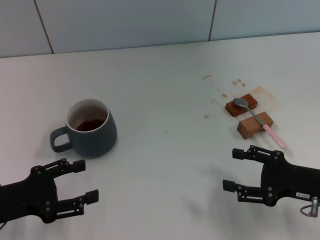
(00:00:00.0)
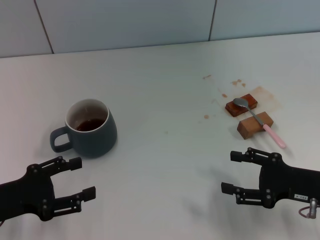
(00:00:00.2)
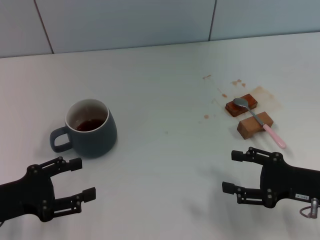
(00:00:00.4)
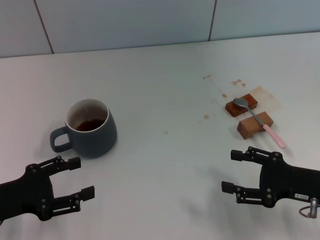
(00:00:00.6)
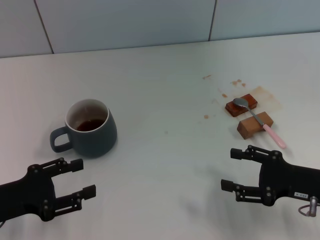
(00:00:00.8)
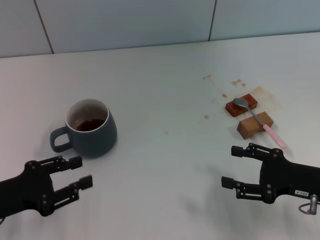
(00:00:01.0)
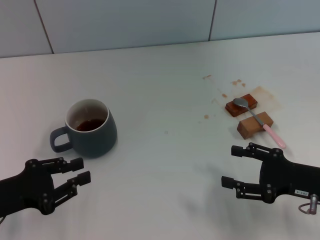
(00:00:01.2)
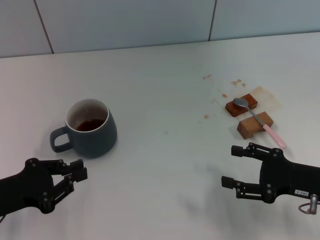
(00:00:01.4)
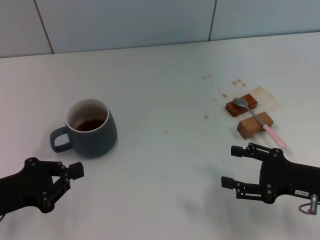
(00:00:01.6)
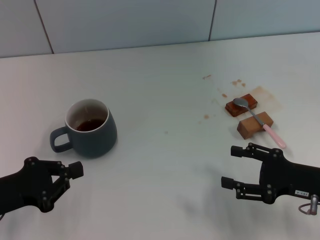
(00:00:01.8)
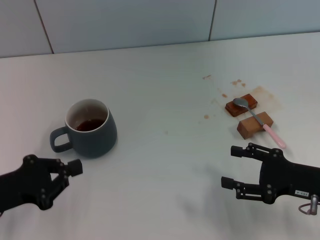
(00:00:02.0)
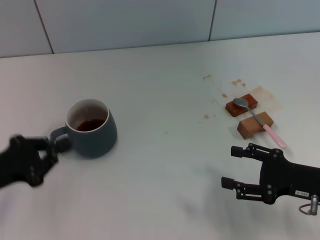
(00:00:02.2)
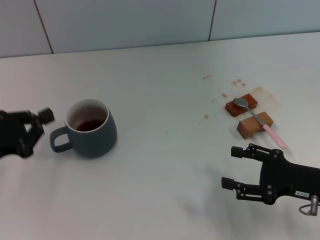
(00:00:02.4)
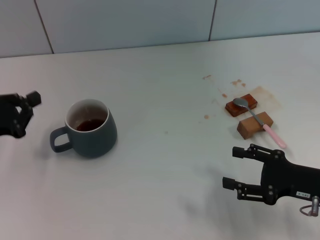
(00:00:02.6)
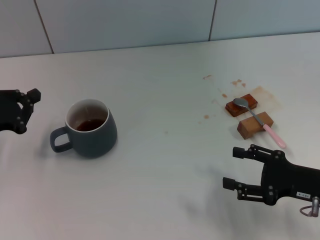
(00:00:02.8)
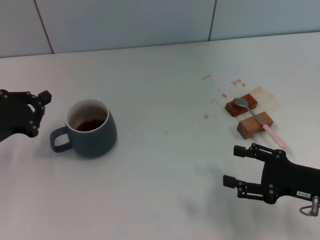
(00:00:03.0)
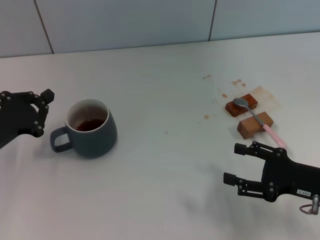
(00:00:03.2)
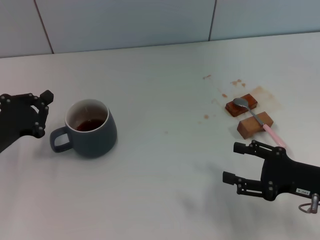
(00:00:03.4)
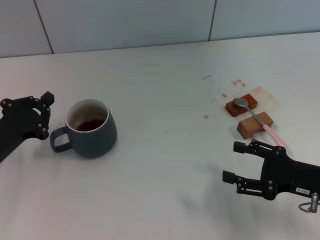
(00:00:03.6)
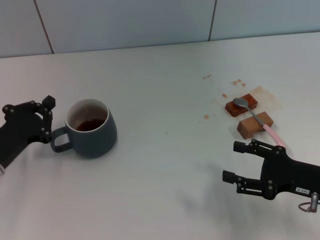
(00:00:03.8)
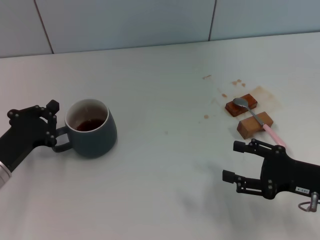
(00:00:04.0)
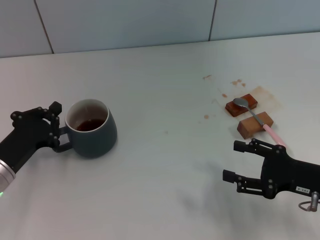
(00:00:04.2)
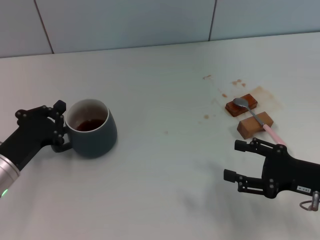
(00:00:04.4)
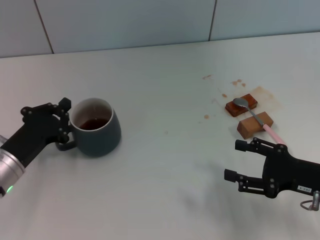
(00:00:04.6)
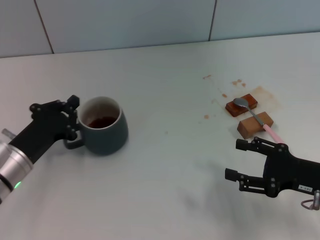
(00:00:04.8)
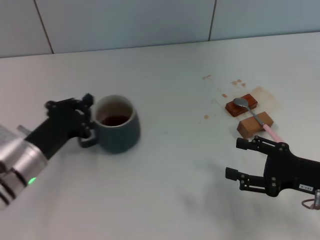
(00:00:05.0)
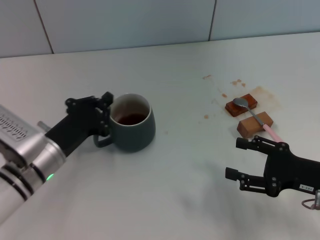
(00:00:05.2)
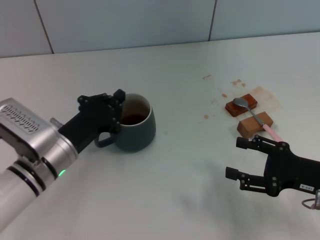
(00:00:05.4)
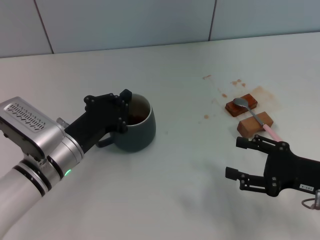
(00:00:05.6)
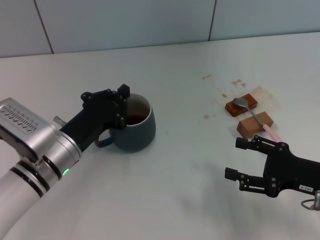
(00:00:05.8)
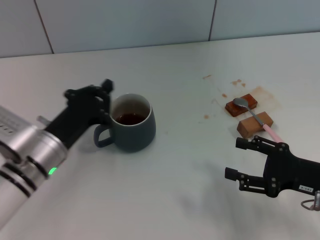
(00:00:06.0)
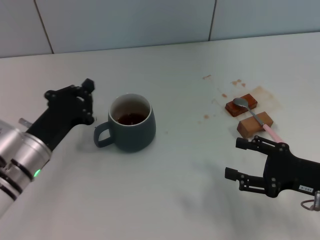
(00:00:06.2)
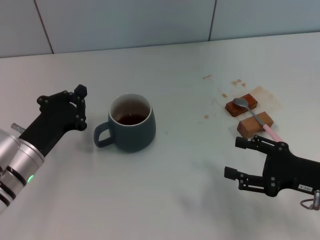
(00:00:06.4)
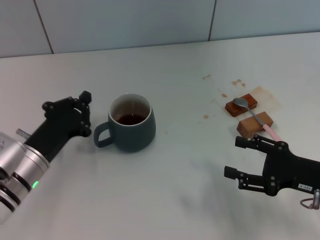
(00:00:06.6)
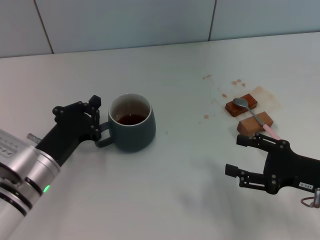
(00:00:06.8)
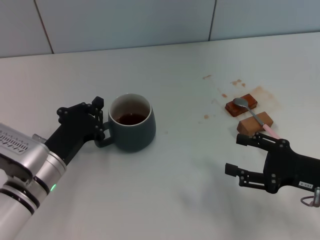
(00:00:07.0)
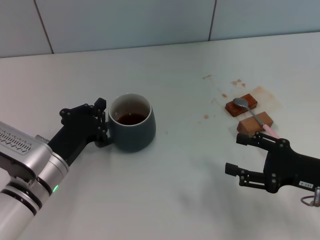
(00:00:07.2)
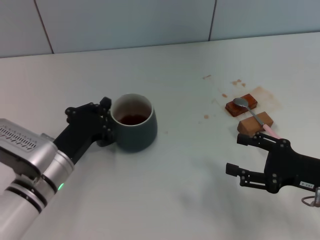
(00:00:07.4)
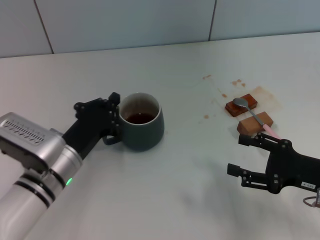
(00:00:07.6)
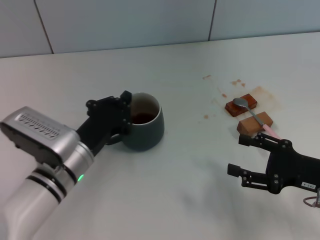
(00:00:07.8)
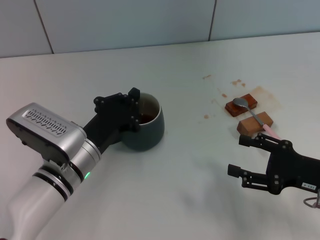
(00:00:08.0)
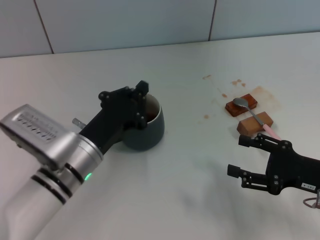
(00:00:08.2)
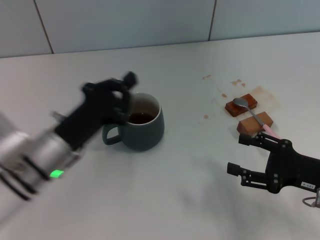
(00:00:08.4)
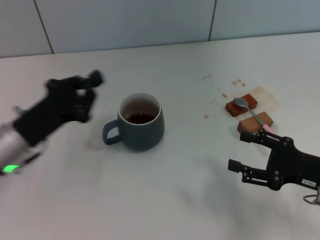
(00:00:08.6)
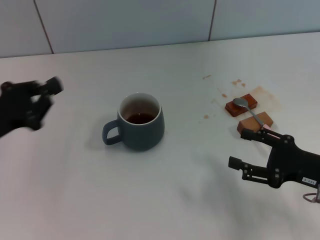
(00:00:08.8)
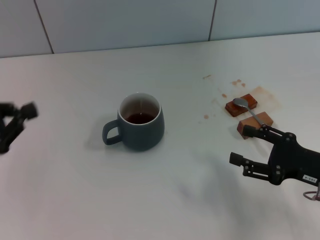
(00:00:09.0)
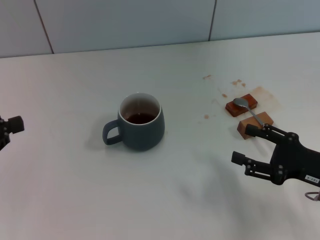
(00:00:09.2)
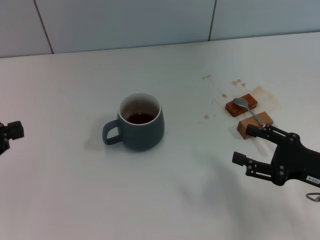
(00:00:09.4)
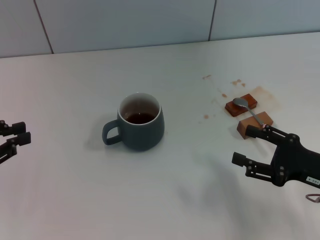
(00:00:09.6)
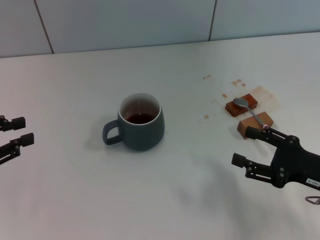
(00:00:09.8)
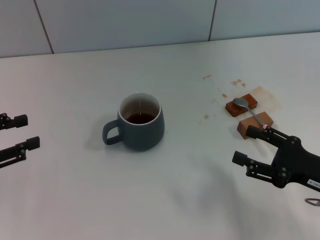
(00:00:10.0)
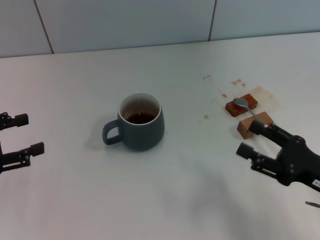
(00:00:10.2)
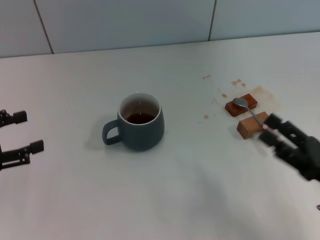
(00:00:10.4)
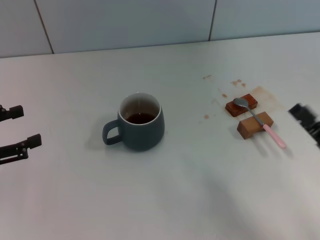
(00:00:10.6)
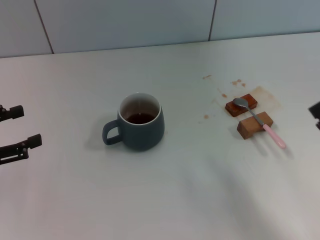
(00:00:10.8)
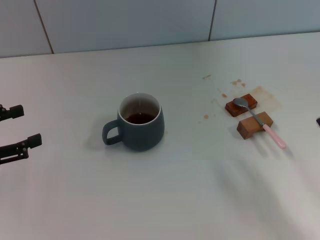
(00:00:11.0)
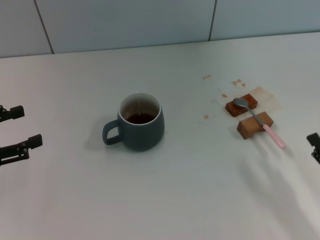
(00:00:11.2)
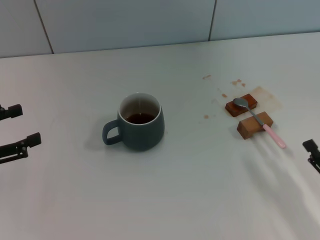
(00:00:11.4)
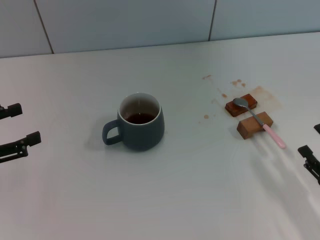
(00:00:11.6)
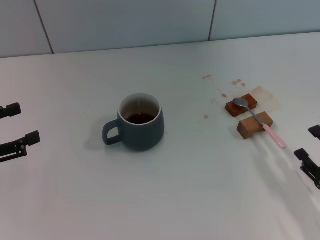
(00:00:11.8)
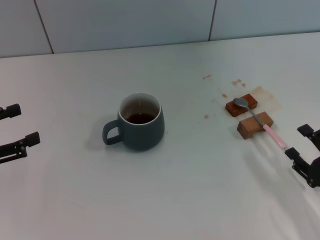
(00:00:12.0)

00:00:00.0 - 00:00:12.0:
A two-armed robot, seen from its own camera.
Task of the whole recording: Move the grey cup to the center, lift the pink spoon, stir it three times in the cup, and put the spoon into the cup.
Step, 00:00:00.0 - 00:00:08.4: Move the cup with coffee to the center of view with the left gripper.
00:00:00.0 - 00:00:01.6: The left gripper closes.
00:00:01.6 - 00:00:03.0: The left gripper shifts roughly 5 cm forward.
00:00:03.0 - 00:00:04.4: The left gripper moves downward, approximately 5 cm.
00:00:04.4 - 00:00:06.0: The left gripper is displaced to the right by approximately 5 cm.
00:00:06.0 - 00:00:07.6: The grippers move only a little.
00:00:07.6 - 00:00:09.0: The left gripper moves to the left and upward, some 20 cm.
00:00:09.0 - 00:00:10.4: The left gripper opens its fingers. The right gripper goes approximately 5 cm backward.
00:00:10.4 - 00:00:12.0: The right gripper travels downward by about 5 cm.

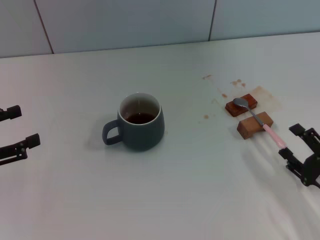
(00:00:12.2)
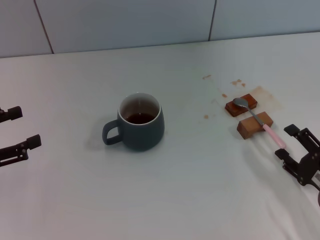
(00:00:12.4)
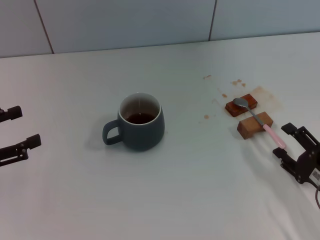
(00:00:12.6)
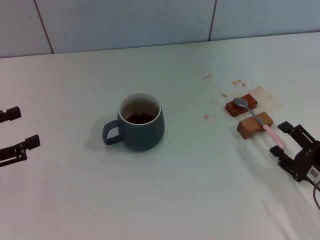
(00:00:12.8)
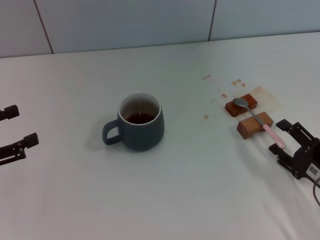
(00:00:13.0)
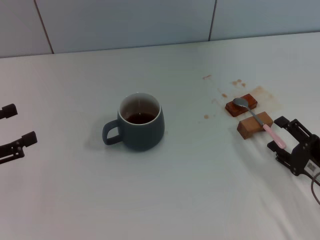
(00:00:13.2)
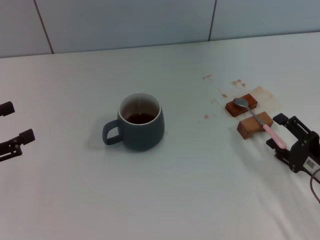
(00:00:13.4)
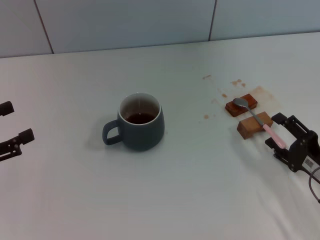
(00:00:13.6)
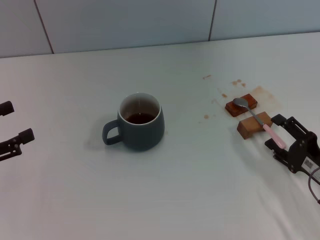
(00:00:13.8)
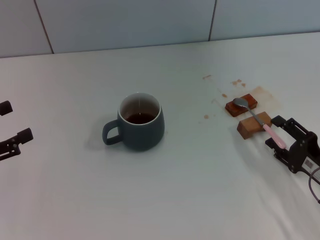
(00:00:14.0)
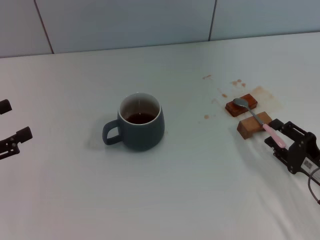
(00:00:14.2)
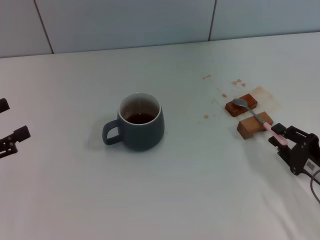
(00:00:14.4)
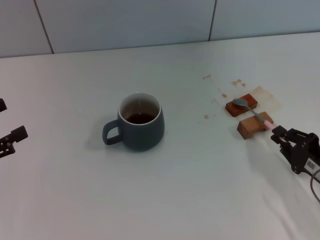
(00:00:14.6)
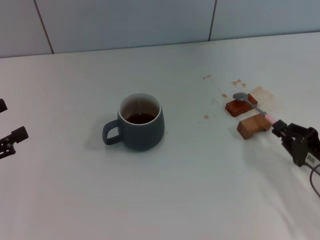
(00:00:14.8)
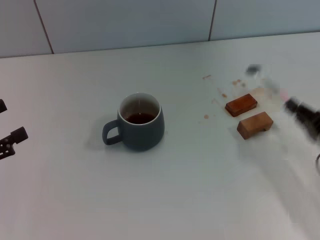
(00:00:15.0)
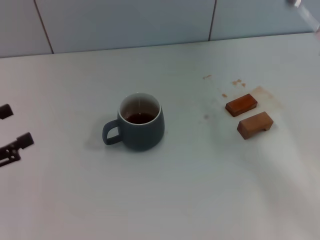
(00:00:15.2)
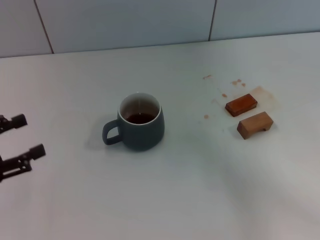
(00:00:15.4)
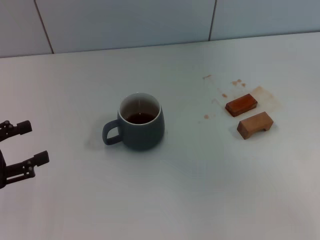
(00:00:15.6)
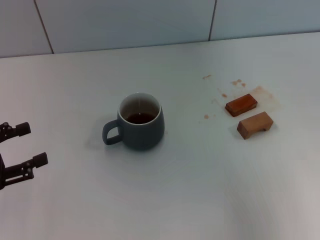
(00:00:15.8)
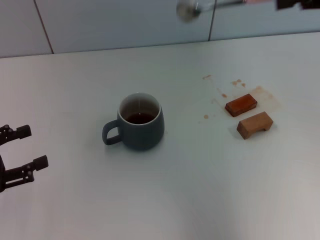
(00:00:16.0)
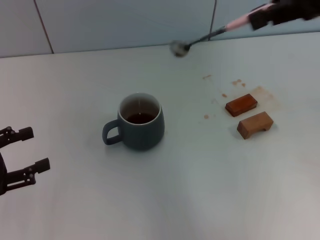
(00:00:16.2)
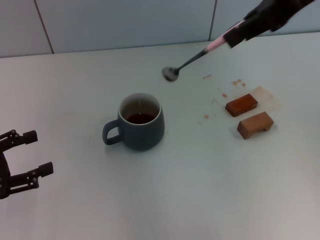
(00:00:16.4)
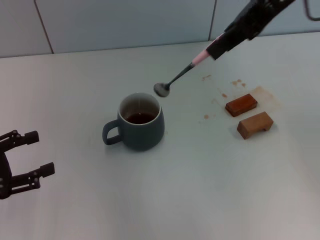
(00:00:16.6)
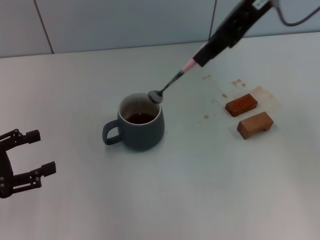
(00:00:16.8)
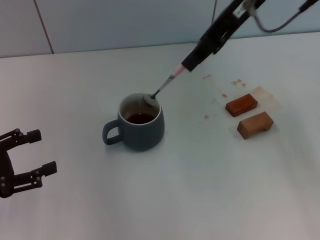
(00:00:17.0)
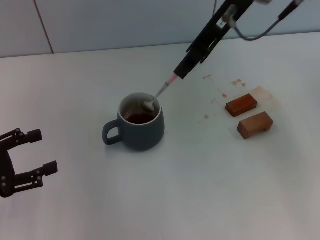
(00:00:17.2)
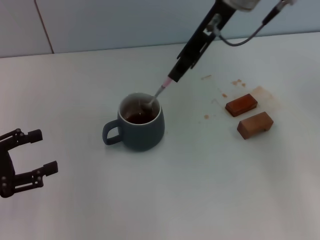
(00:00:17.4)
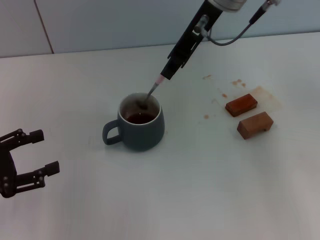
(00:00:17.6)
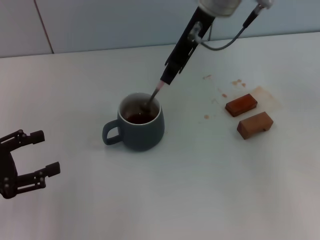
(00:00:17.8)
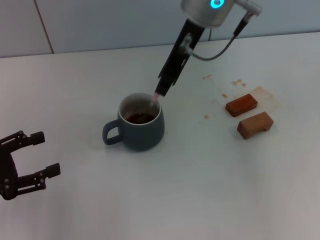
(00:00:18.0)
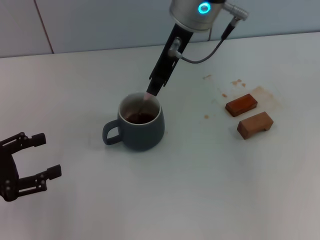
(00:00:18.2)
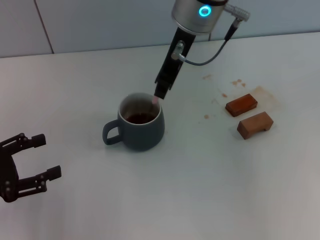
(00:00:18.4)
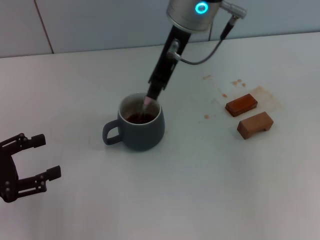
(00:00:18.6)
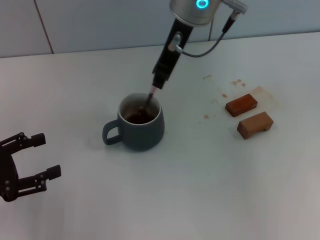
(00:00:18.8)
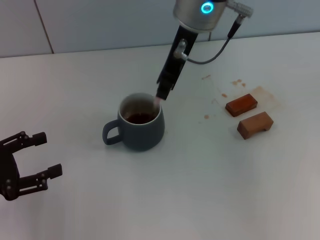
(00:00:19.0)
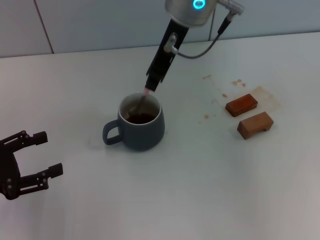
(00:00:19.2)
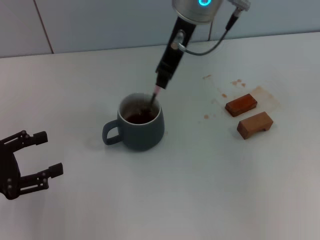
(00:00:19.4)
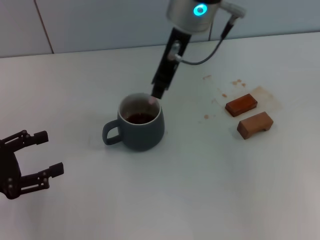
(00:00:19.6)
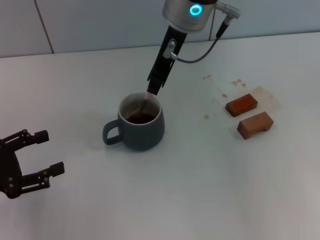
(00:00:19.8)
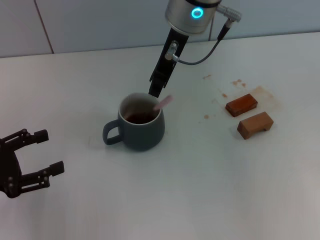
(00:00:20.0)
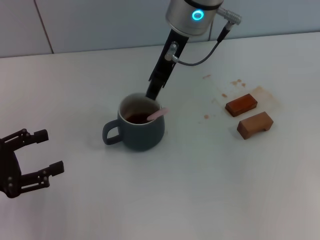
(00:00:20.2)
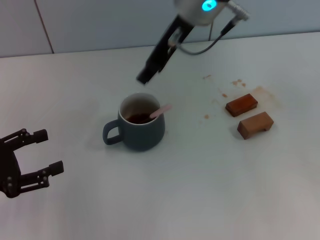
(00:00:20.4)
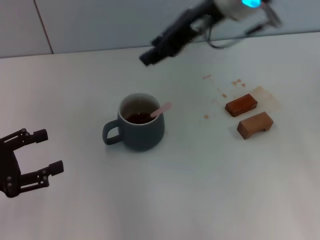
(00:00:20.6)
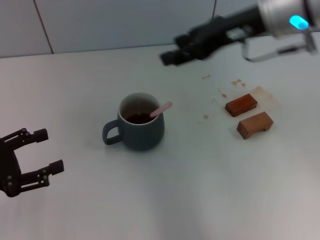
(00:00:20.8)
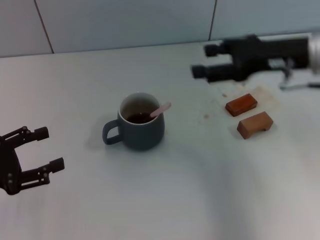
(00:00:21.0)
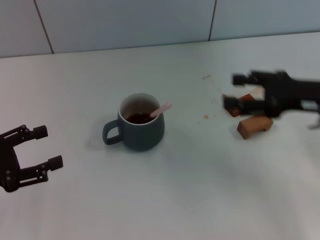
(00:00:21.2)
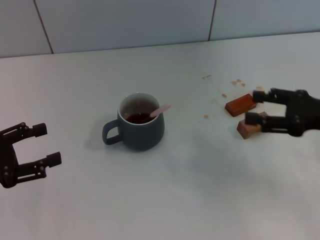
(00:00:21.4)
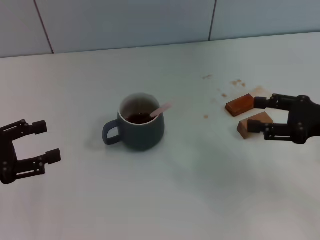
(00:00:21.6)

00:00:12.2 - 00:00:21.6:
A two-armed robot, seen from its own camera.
Task of the whole recording: Move the grey cup to the center, lift the pink spoon, stir it three times in the cup, and put the spoon into the cup.
Step, 00:00:12.2 - 00:00:14.8: Pick up the spoon with the right gripper.
Step, 00:00:15.0 - 00:00:20.2: Stir the coffee in the cup with the right gripper.
00:00:12.2 - 00:00:13.8: There are only small adjustments of the grippers.
00:00:13.8 - 00:00:15.4: The right gripper goes approximately 15 cm upward, and closes up.
00:00:15.4 - 00:00:17.0: The right gripper goes approximately 30 cm to the left, upward and forward.
00:00:17.0 - 00:00:18.4: The right gripper is displaced to the left and downward by about 10 cm.
00:00:18.4 - 00:00:20.0: Both grippers stay put.
00:00:20.0 - 00:00:21.6: The right gripper travels to the right, downward and backward by about 35 cm, and opens up.
